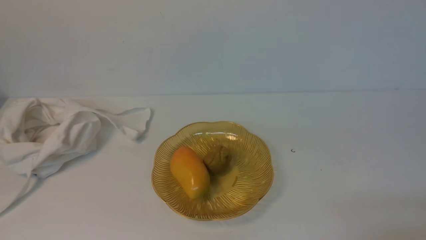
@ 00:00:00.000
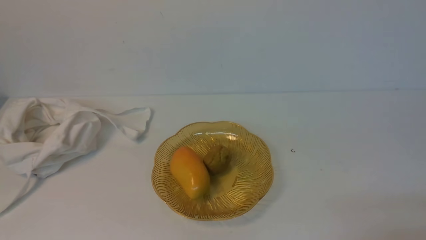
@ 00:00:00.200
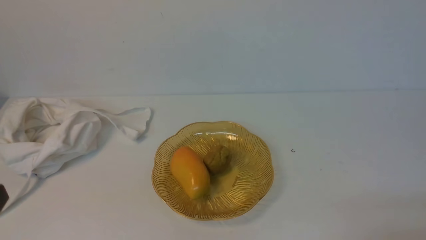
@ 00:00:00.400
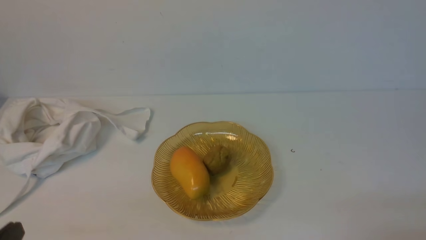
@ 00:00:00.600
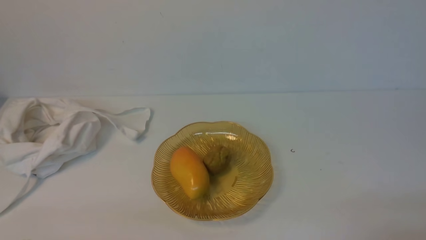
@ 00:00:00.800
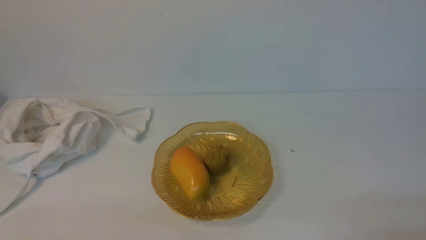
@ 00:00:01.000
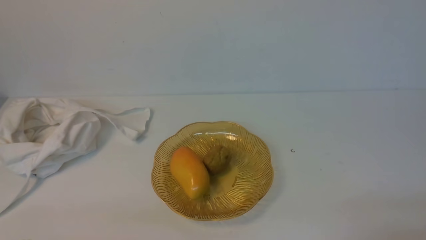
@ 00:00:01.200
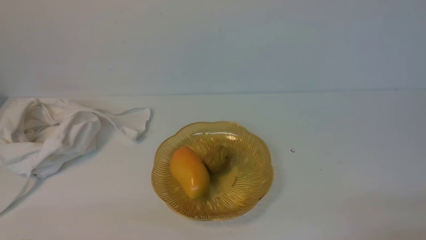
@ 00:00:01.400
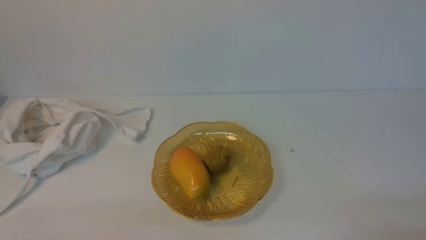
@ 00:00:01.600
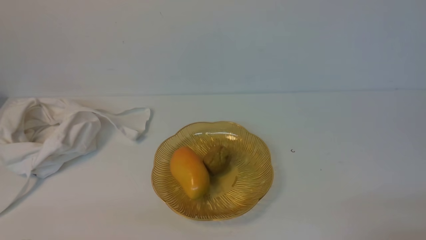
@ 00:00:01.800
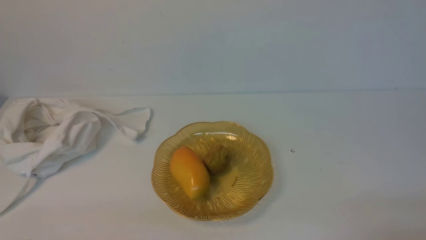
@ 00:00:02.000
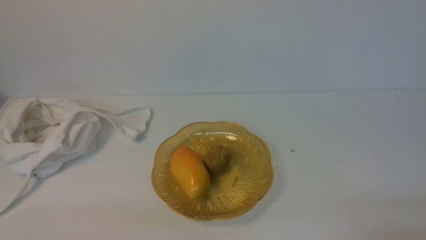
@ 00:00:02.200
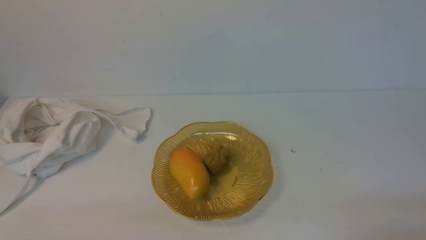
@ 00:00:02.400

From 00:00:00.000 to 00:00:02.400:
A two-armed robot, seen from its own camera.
From 00:00:01.200 to 00:00:02.400: Neither gripper changes place.

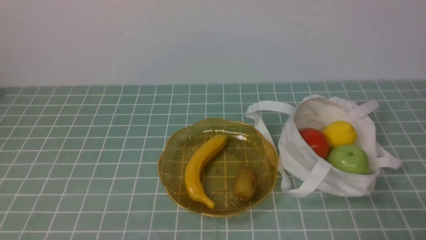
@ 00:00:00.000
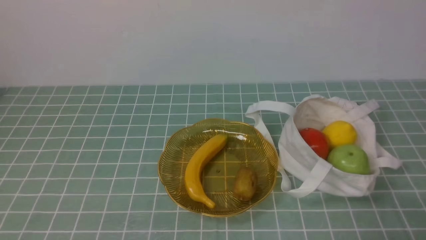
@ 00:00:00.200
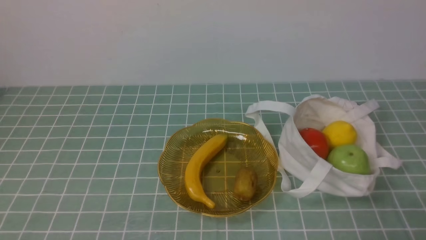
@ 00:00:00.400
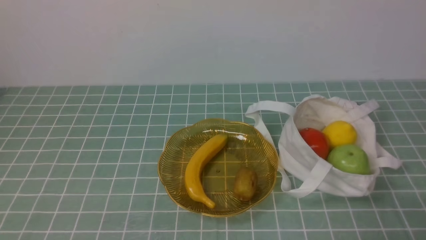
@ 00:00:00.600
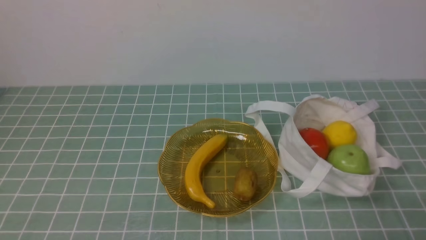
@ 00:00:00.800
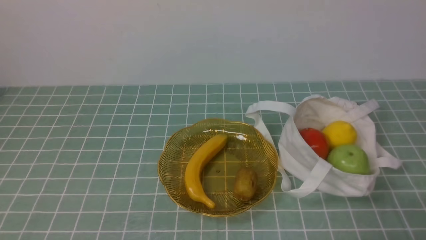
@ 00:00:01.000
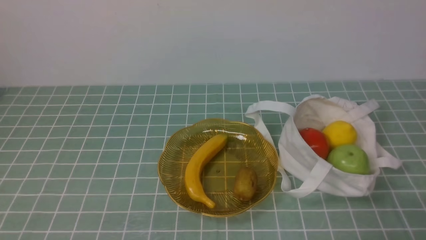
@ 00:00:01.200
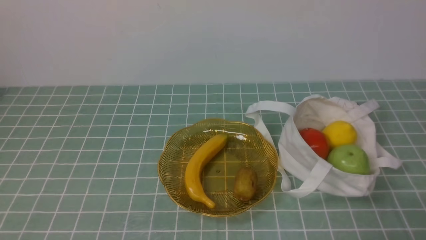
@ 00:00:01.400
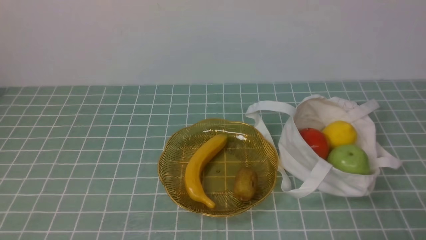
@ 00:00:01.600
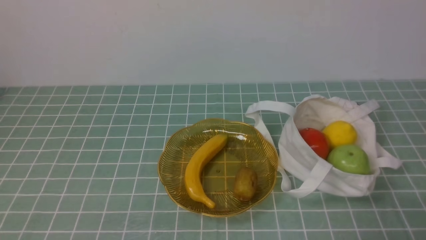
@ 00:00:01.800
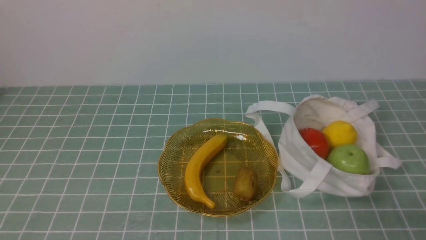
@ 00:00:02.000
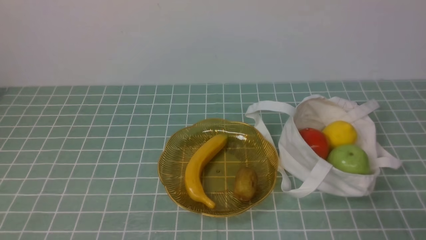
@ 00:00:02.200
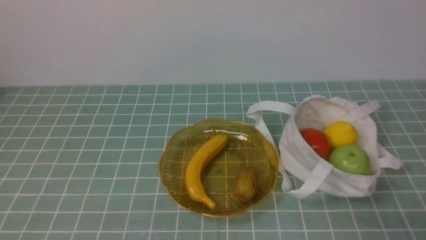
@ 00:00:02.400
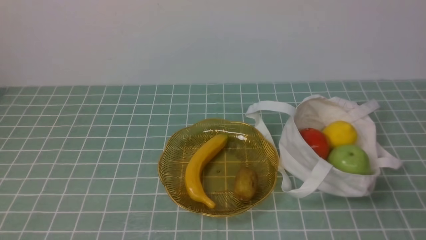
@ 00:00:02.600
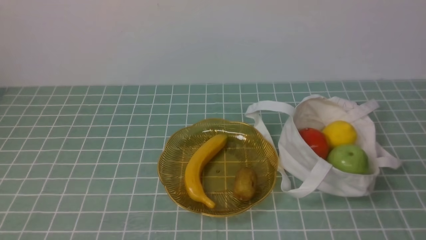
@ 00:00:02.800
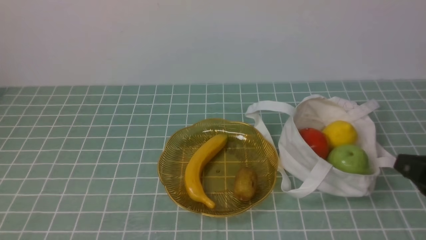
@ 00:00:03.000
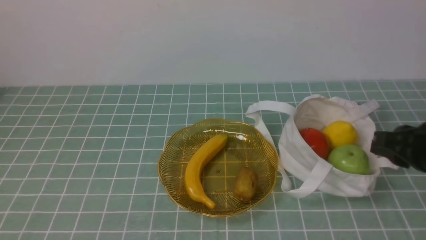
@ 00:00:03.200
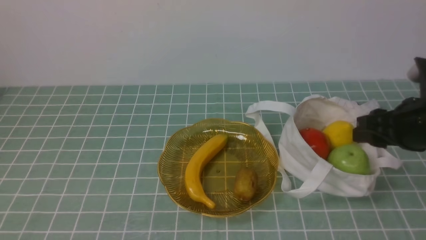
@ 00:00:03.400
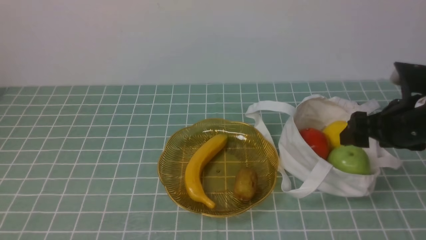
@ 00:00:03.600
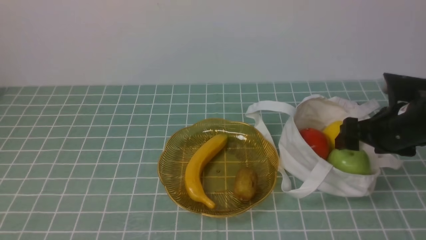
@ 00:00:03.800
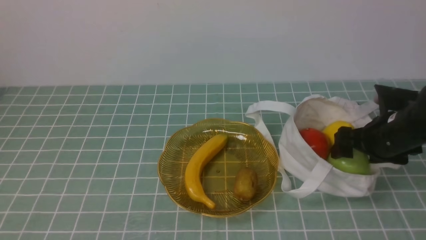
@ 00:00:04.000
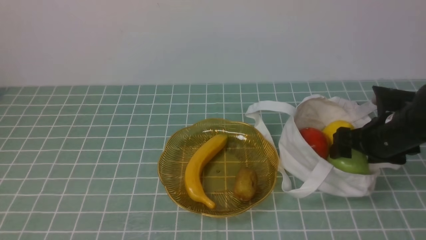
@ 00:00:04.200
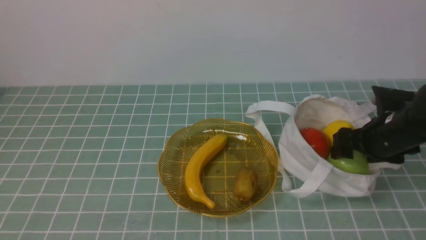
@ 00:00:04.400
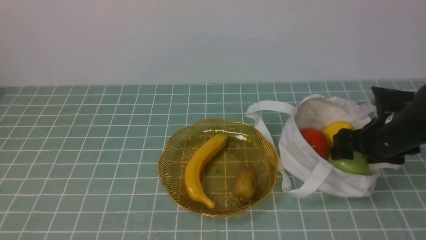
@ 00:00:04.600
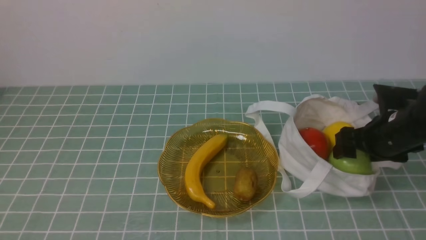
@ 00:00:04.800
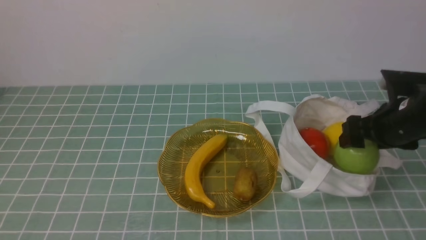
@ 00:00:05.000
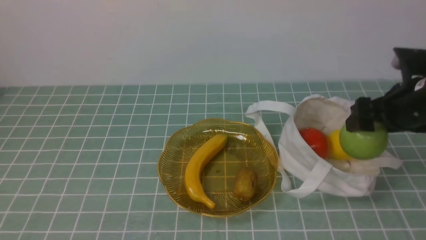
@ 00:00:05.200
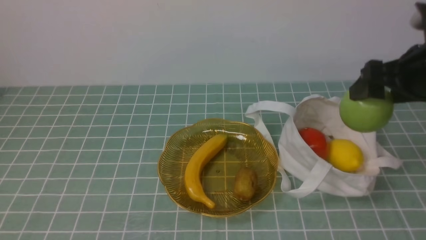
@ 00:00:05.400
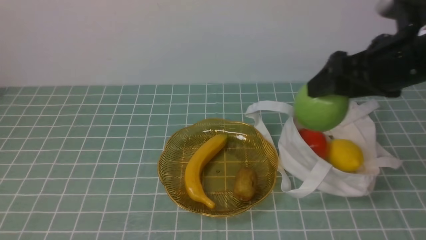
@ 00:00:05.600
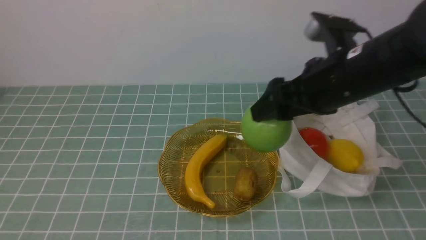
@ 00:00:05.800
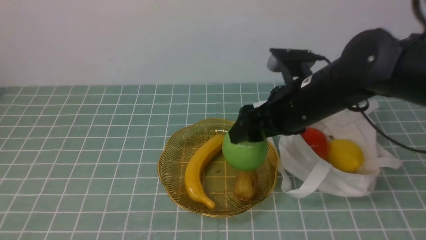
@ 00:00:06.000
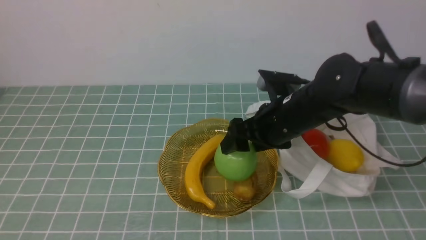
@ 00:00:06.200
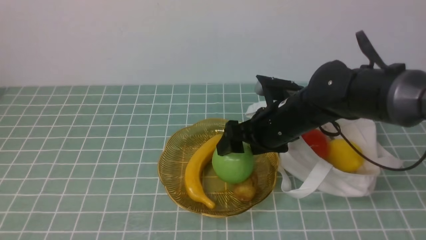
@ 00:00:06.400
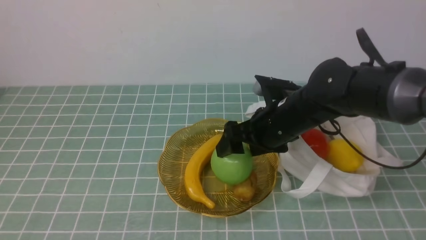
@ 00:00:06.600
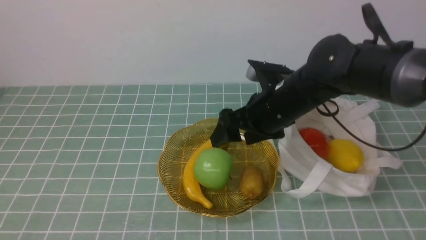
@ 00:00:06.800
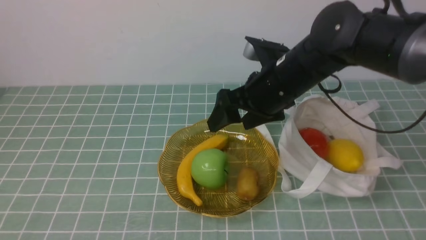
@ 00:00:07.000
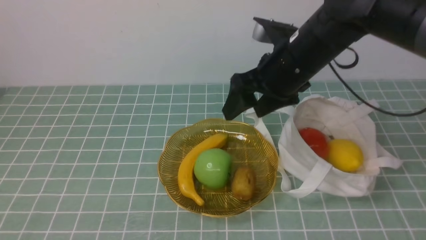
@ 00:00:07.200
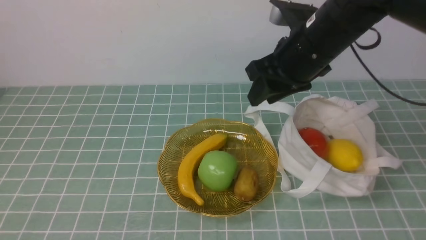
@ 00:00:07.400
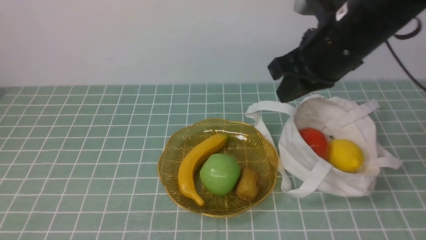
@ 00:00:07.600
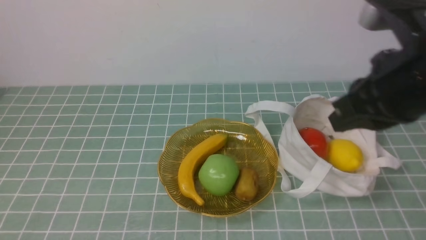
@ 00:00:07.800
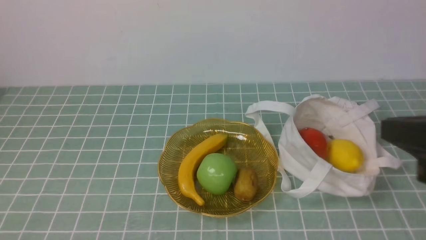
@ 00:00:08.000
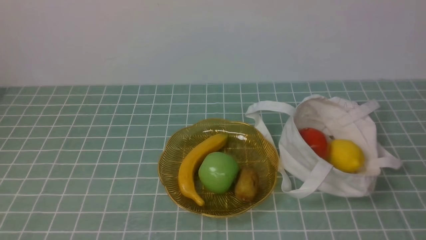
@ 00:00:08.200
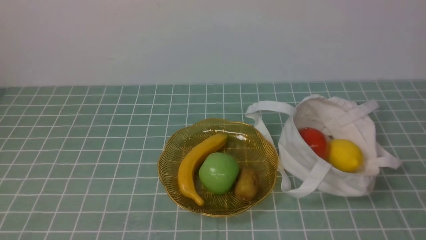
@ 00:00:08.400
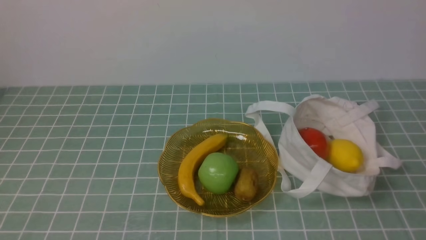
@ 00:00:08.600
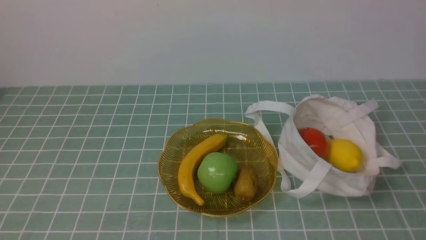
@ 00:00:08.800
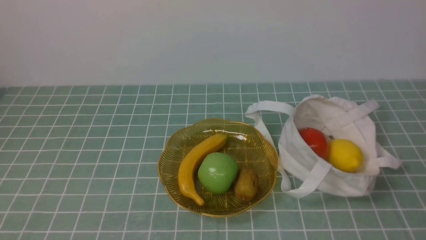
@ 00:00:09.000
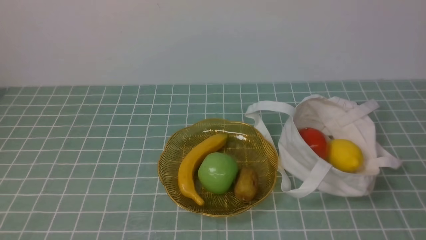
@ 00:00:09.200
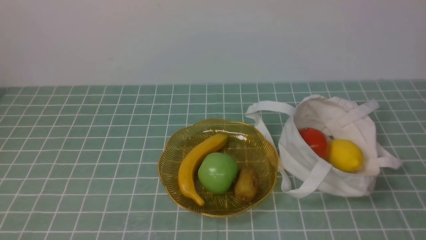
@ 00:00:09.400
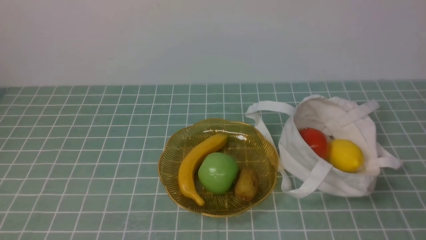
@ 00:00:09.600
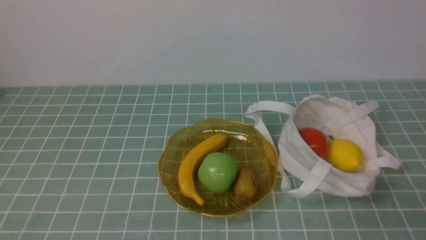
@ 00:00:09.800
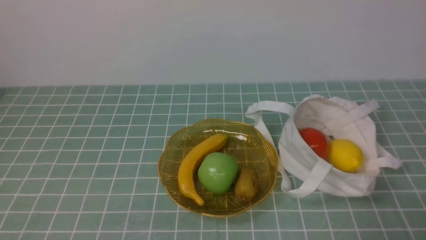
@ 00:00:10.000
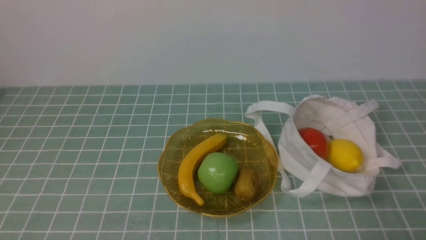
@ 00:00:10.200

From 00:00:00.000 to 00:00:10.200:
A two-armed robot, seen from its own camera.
Step, from 00:00:00.000 to 00:00:04.600: use the right arm to grab an apple from the bag.
Step, from 00:00:05.000 to 00:00:06.800: use the right arm to put the apple into the empty plate on the left.
From 00:00:01.400 to 00:00:03.000: The right gripper shifts some 15 cm upward and forward.
From 00:00:03.000 to 00:00:04.400: The right gripper travels forward and downward by some 20 cm, and opens up.
From 00:00:04.400 to 00:00:05.800: The right gripper goes approximately 15 cm upward and to the left.
From 00:00:05.800 to 00:00:07.200: The right gripper moves to the left, some 10 cm, and travels downward and back again, about 10 cm each way.
From 00:00:07.200 to 00:00:08.800: The right gripper travels backward and to the right by some 35 cm, and closes up.

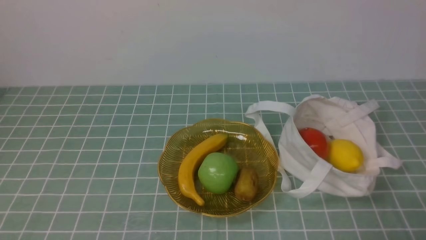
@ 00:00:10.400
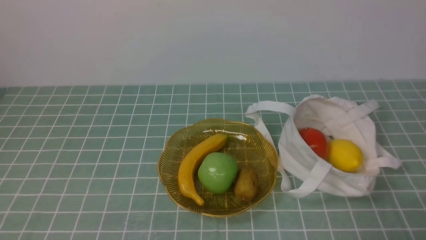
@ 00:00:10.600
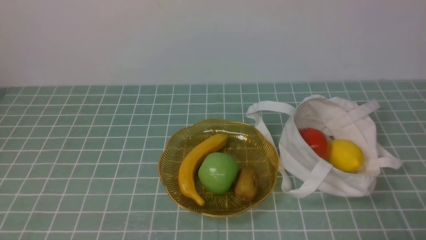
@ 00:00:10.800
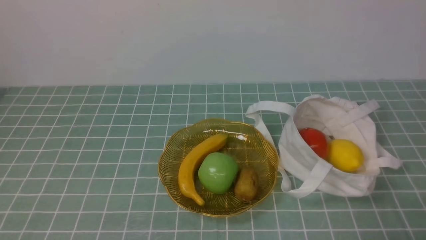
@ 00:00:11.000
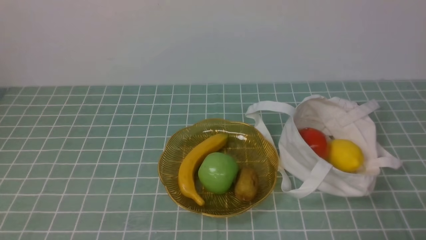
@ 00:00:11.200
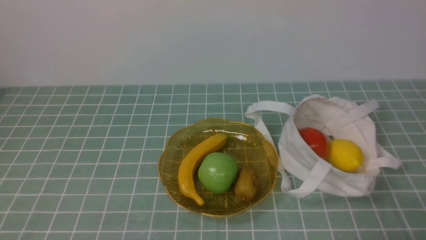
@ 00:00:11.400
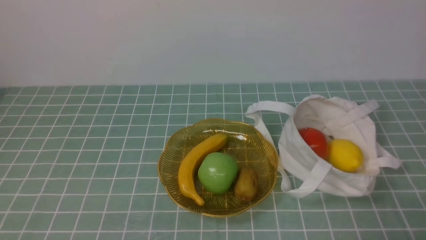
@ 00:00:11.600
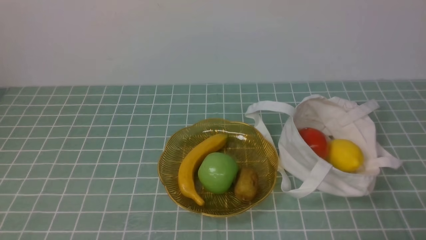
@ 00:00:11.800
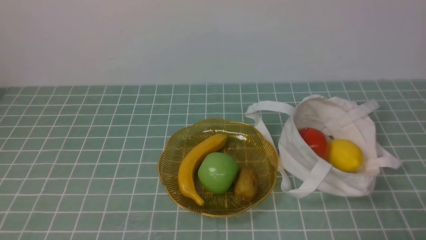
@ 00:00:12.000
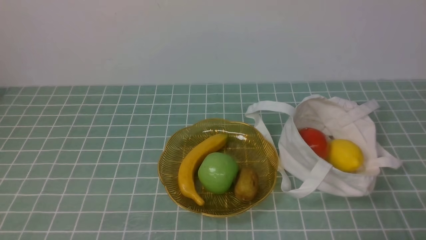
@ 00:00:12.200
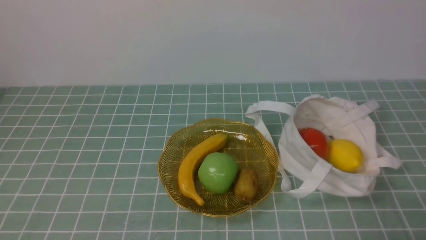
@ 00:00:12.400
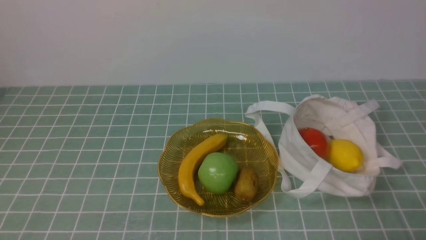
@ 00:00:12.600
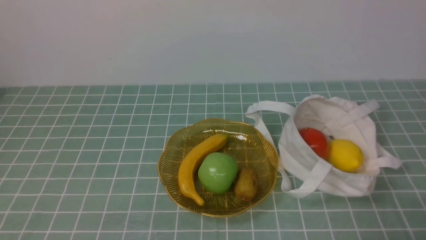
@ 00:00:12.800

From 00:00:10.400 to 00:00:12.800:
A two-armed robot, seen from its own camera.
From 00:00:10.400 to 00:00:12.800: Both grippers stay put.
